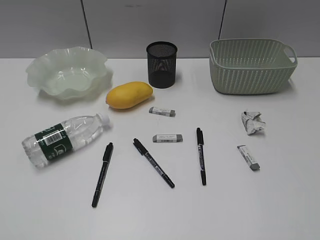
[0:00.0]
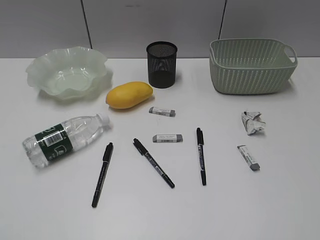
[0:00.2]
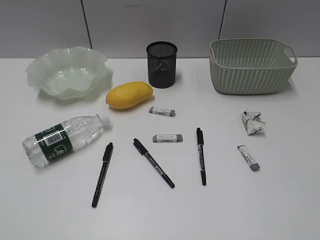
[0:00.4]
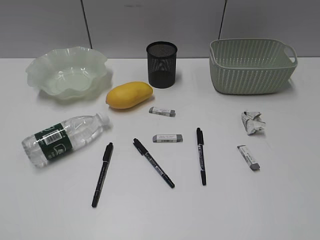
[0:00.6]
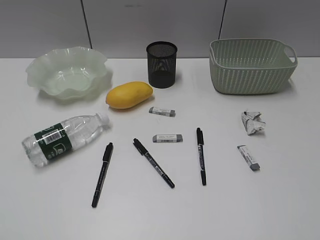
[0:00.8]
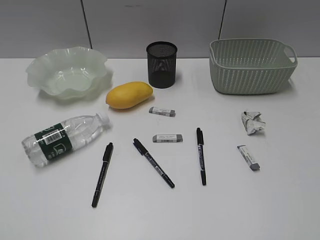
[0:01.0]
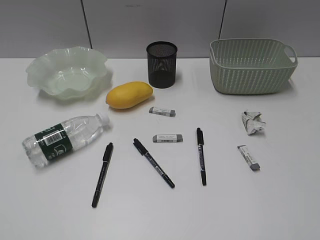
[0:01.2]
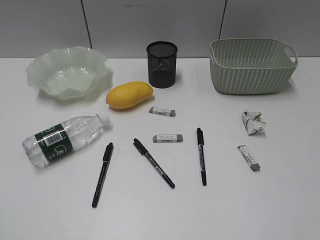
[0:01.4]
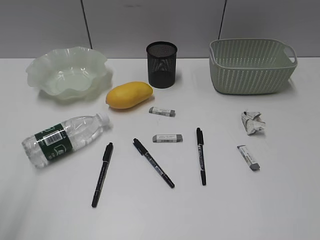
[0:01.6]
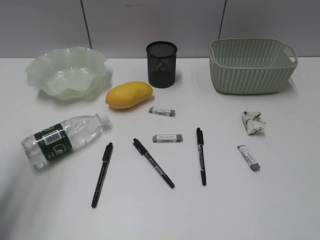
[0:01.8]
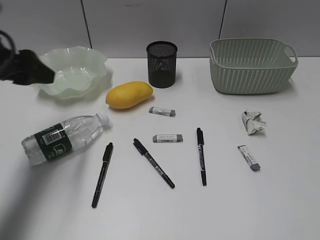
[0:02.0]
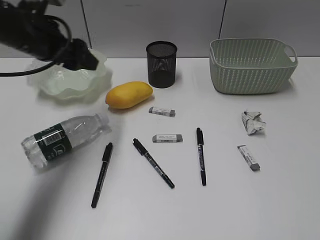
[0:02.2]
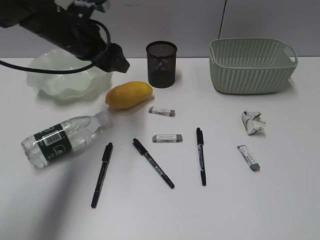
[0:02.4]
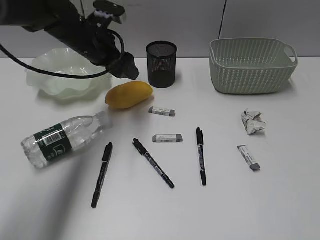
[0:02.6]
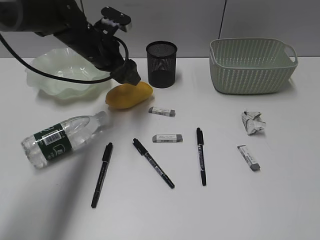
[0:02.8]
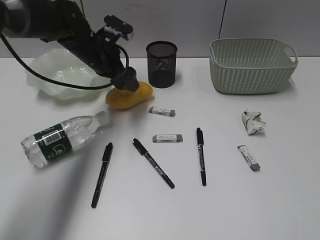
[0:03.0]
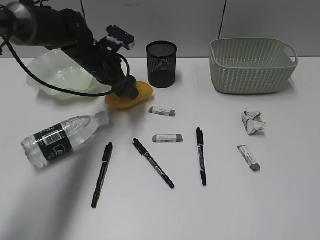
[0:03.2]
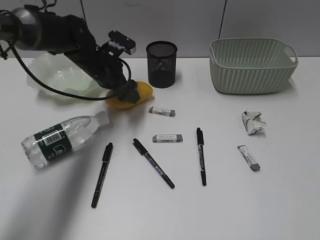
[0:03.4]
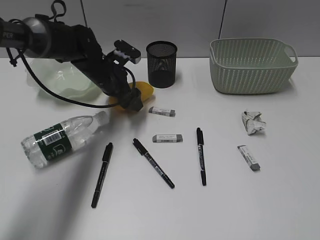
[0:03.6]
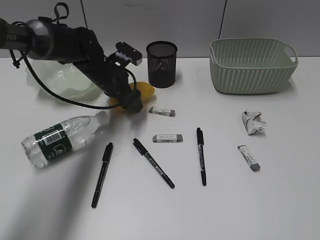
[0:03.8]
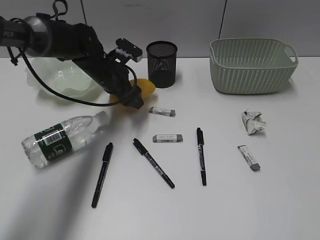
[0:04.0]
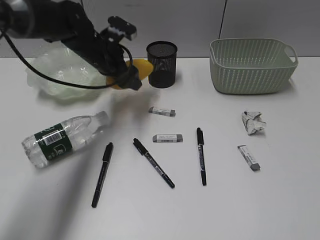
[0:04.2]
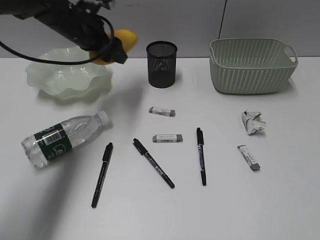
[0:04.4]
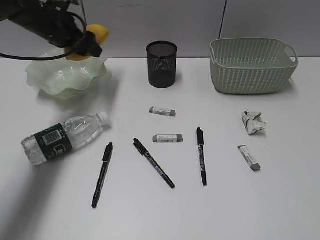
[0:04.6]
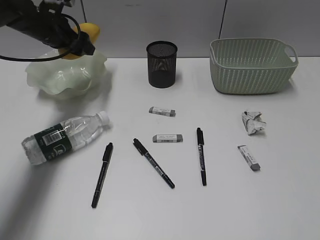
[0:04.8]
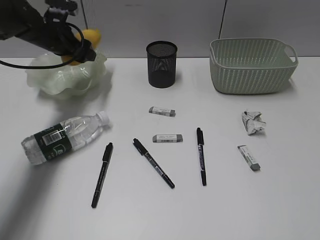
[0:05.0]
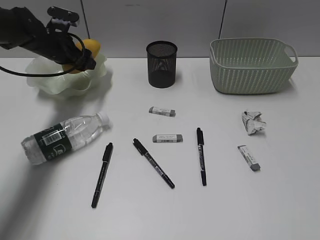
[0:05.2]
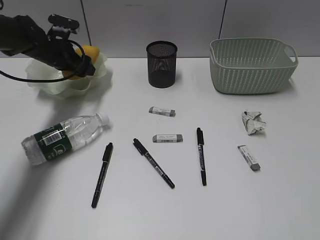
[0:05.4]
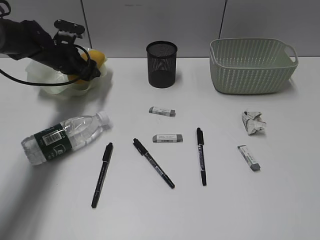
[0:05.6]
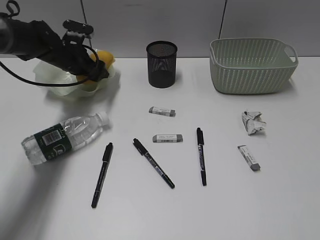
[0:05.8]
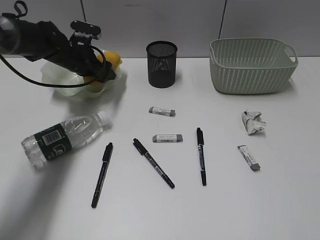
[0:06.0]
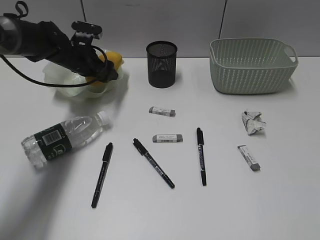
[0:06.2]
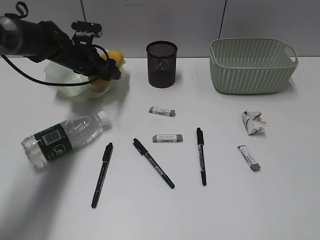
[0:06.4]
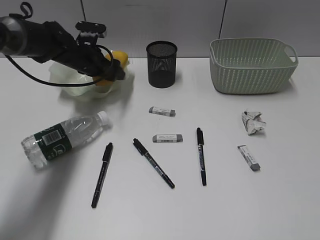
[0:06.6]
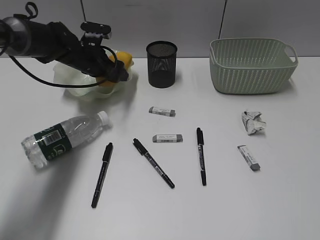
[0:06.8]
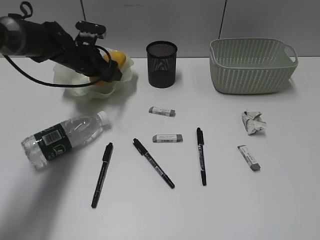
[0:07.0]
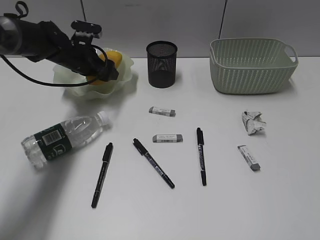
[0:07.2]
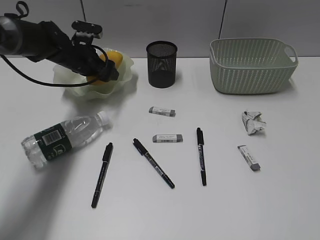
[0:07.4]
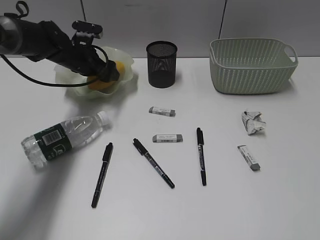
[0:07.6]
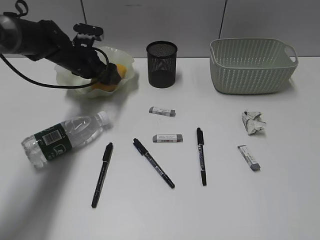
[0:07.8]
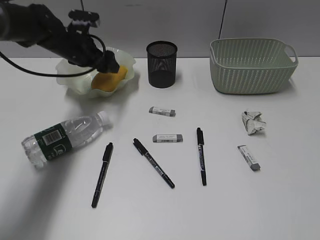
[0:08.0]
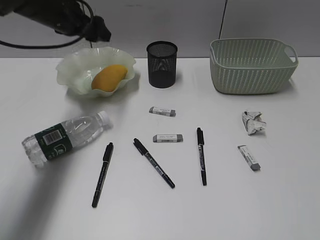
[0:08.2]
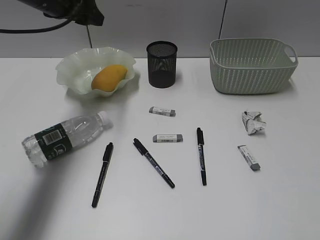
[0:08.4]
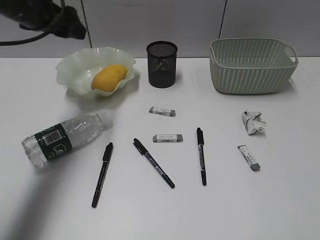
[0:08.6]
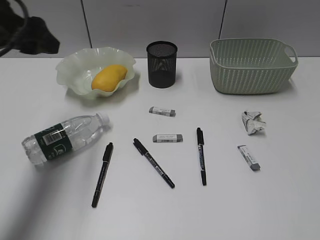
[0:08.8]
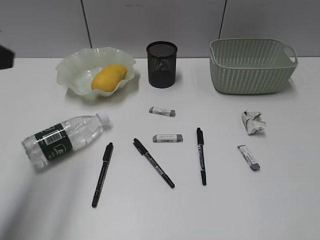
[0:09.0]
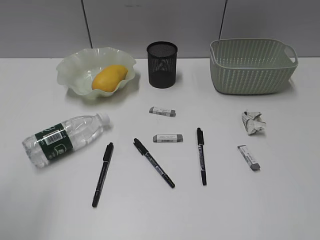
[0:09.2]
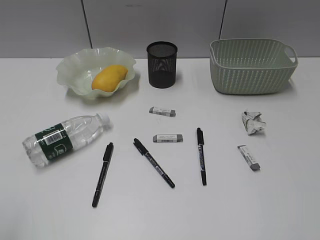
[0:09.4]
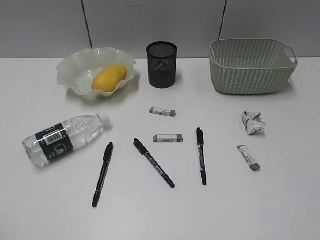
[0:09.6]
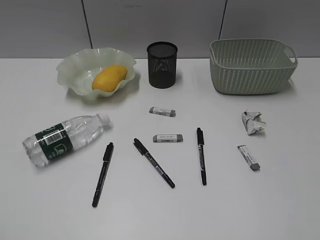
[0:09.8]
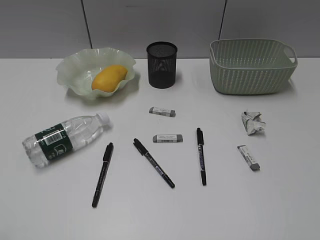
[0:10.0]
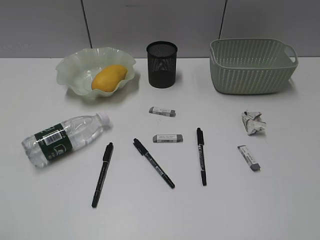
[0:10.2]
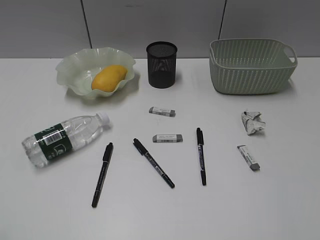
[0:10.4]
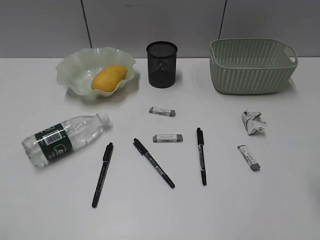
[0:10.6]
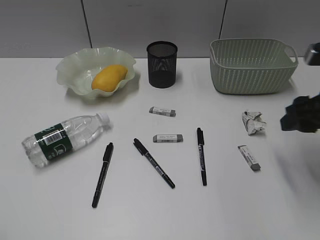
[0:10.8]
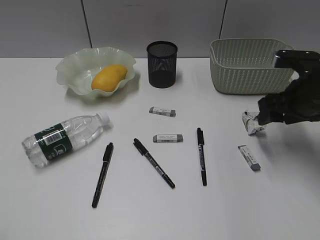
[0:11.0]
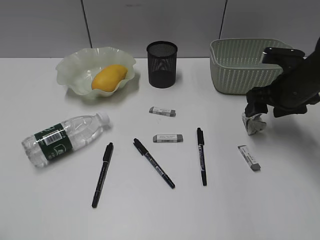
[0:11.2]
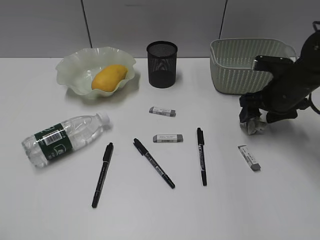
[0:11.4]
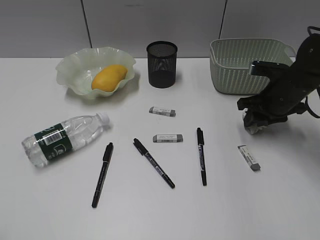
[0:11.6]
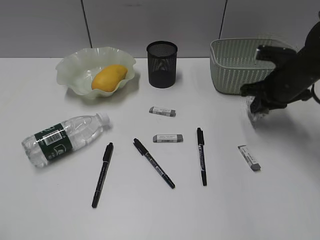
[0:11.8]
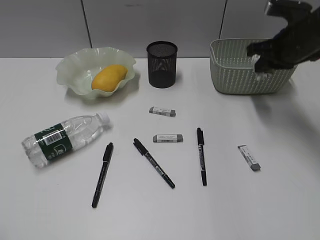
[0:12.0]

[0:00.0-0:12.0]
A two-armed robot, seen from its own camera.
Step, 0:00.0 to 0:04.0: Grasp the mango with left gripper.
Step, 0:04.2 to 0:07.8: Place the mango in the plate with left gripper.
Step, 0:08.0 to 0:11.6: Grasp the waste paper with right gripper.
0:01.6 to 0:03.0: The left gripper is displaced forward and to the right by some 40 cm, and opens its fingers.
0:03.0 to 0:04.4: The grippers make only small movements.
0:04.4 to 0:06.0: The left gripper is displaced downward by some 10 cm.
0:06.0 to 0:07.6: There are only small adjustments of the grippers.
0:07.6 to 0:09.0: The left gripper travels backward and upward by approximately 35 cm.
0:09.0 to 0:10.4: The left gripper travels backward by roughly 20 cm.
0:10.4 to 0:12.0: The right gripper heads forward, covering about 35 cm, and closes its fingers.

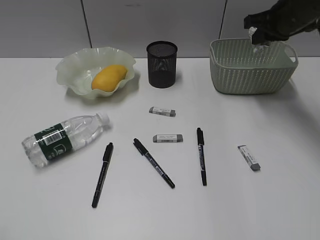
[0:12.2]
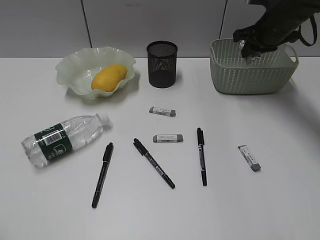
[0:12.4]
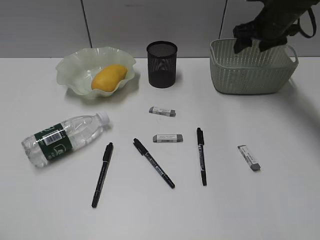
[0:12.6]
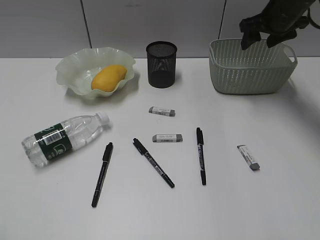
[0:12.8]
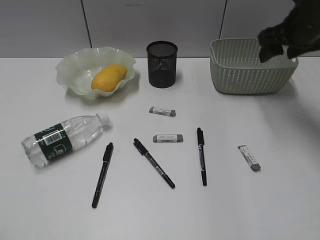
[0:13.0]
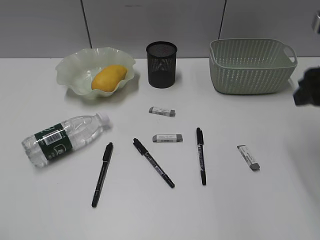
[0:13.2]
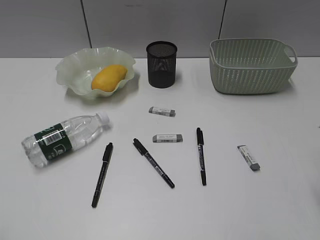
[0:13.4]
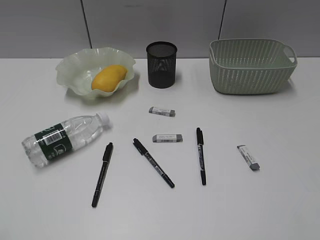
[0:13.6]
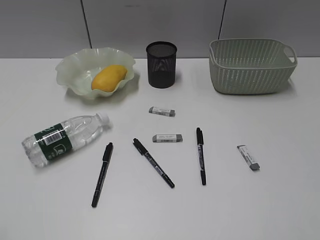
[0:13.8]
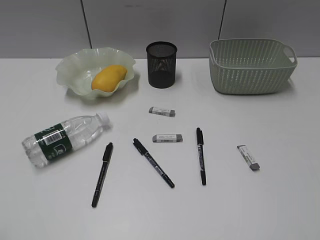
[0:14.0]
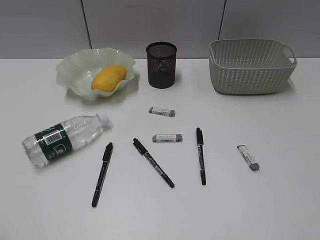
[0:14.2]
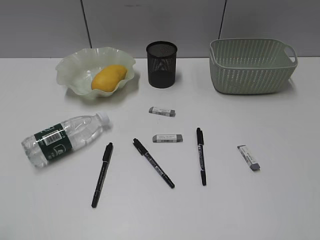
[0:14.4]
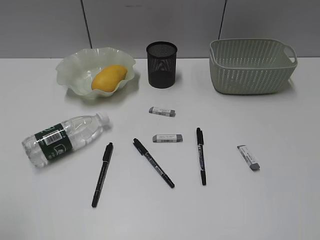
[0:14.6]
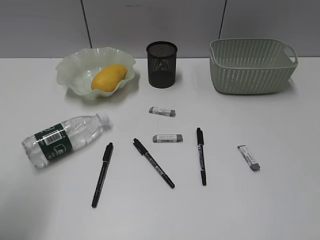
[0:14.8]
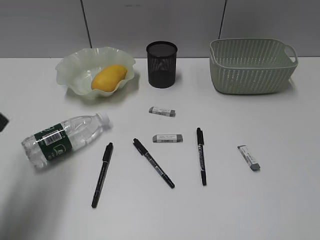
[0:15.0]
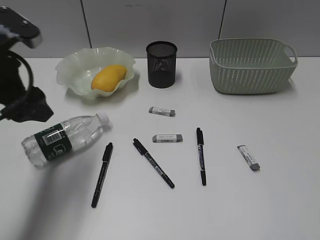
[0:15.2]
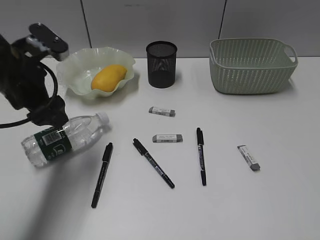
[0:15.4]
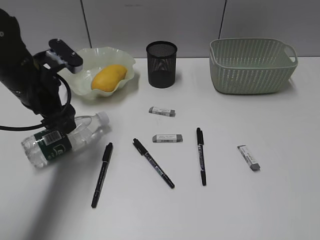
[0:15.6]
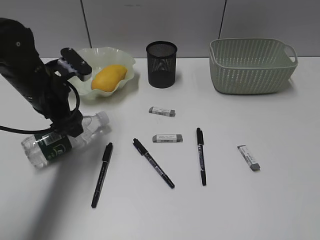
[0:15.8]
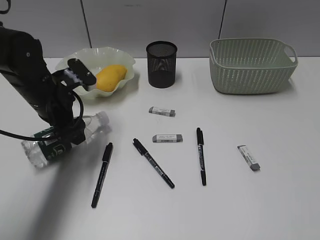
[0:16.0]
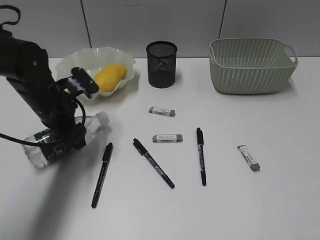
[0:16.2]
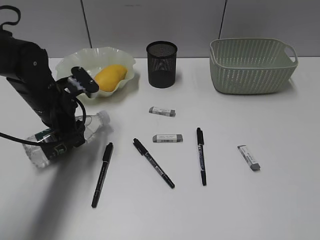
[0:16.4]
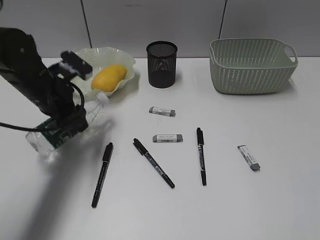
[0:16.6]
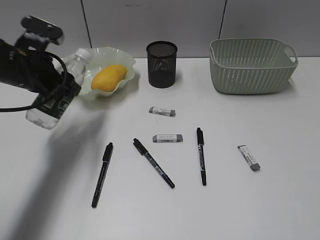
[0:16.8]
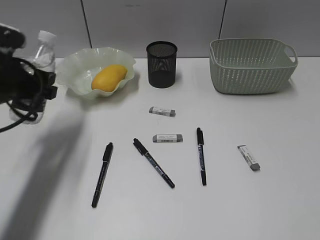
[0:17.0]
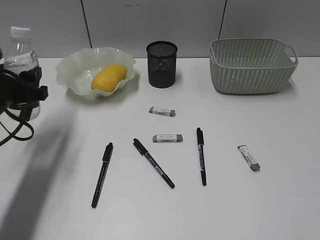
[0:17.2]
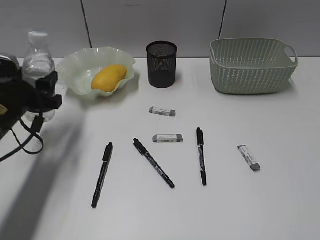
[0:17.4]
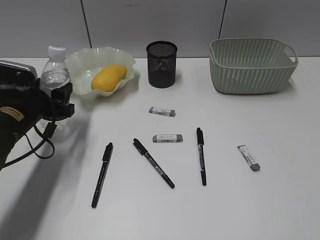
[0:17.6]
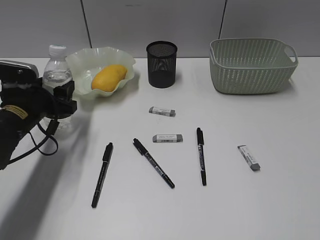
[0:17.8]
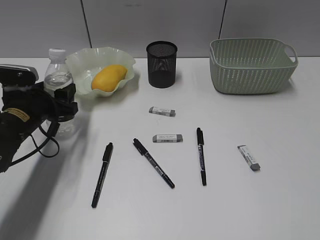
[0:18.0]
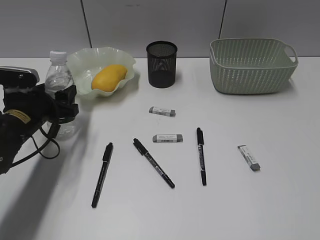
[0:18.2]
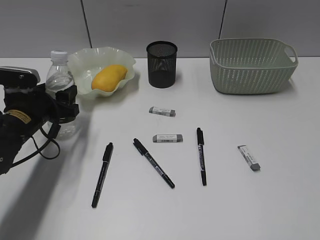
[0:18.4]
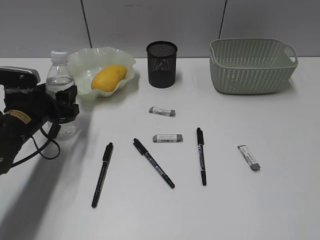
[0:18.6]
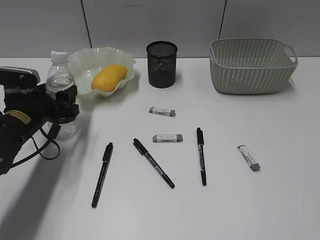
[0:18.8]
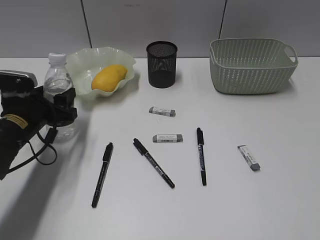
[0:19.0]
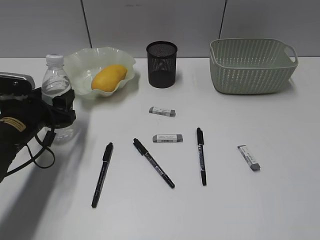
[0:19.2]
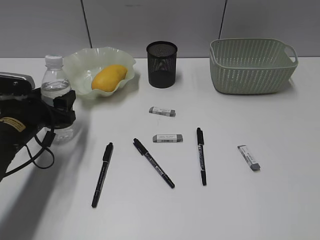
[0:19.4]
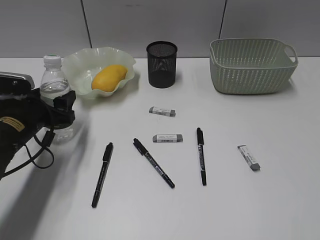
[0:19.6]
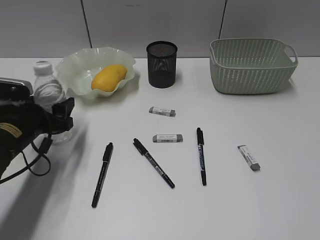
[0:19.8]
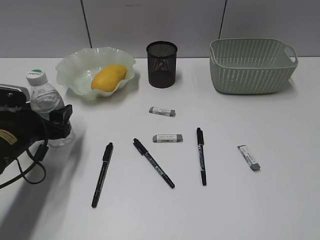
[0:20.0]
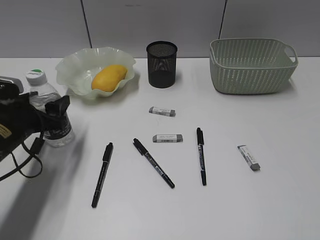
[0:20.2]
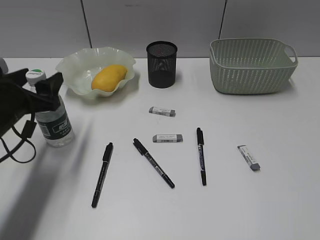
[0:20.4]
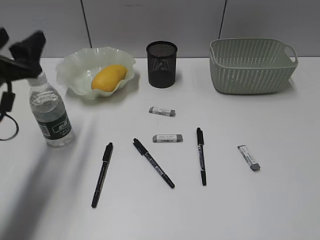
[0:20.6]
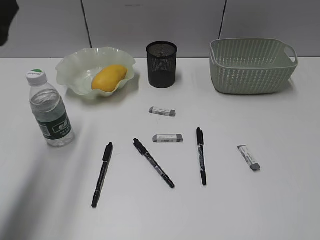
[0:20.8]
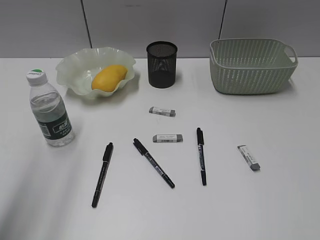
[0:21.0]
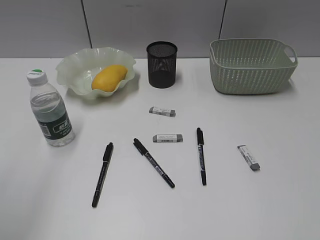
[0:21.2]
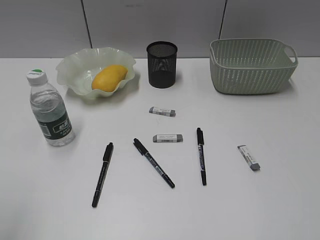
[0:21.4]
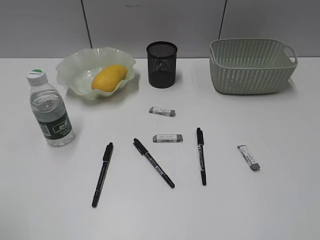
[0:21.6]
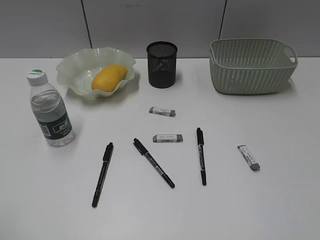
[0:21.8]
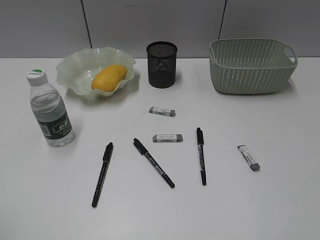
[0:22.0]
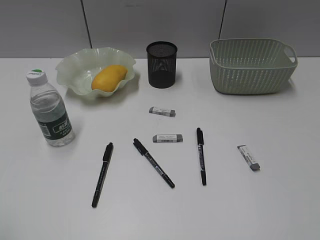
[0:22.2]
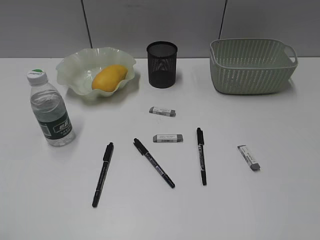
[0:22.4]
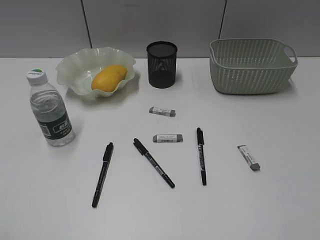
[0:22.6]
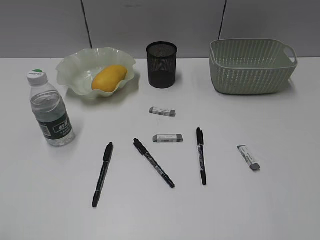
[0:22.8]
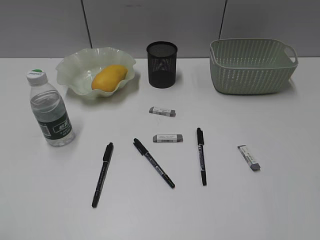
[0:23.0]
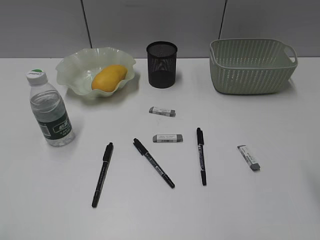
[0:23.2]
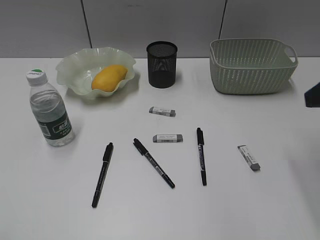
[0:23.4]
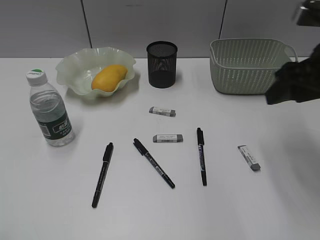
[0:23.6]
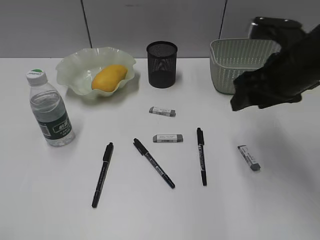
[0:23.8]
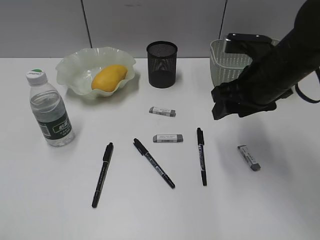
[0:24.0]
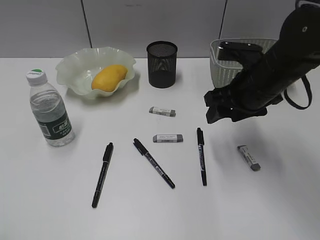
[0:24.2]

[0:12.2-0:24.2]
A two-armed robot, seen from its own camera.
Step, 0:12.2 to 0:12.8: Place the waste paper in the basket with right gripper.
Step, 0:13.0 to 0:16.2: Grasp the bottle with left gripper.
Step, 0:16.4 to 0:20.4: Stand the bottle with left gripper.
0:12.2 to 0:13.8: The right gripper is displaced backward by approximately 40 cm, and opens its fingers.
0:13.8 to 0:15.2: The left gripper moves forward, some 25 cm.
0:15.2 to 0:16.6: The left gripper moves downward and forward, approximately 15 cm, and closes its fingers.
0:16.6 to 0:18.2: The left gripper goes about 5 cm downward.
0:18.2 to 0:19.8: The grippers make only small movements.
0:19.8 to 0:21.2: The left gripper is displaced upward and backward by roughly 30 cm.
0:22.6 to 0:24.2: The right gripper moves forward and to the left, about 35 cm.
